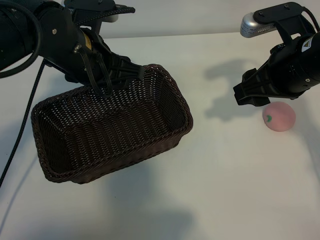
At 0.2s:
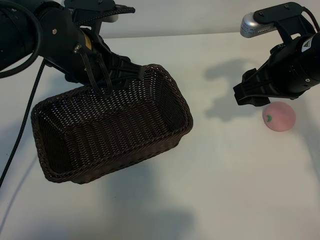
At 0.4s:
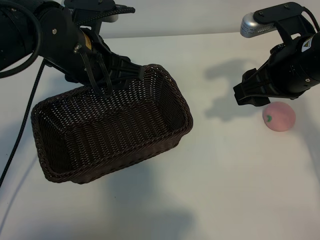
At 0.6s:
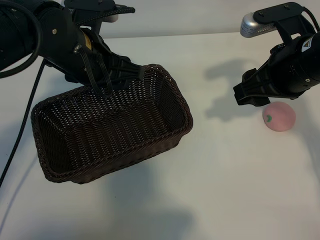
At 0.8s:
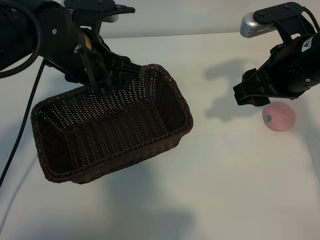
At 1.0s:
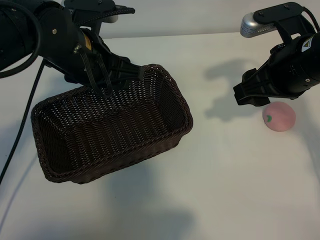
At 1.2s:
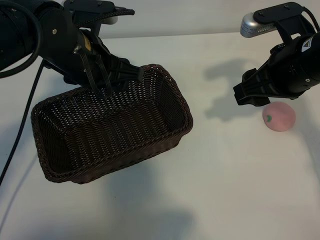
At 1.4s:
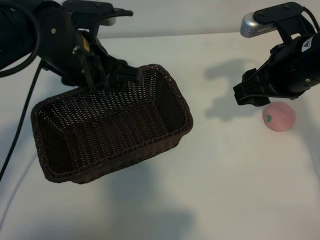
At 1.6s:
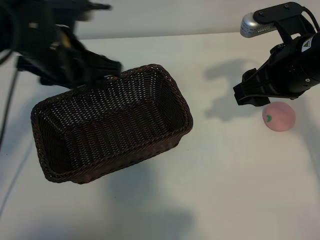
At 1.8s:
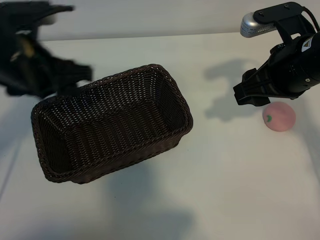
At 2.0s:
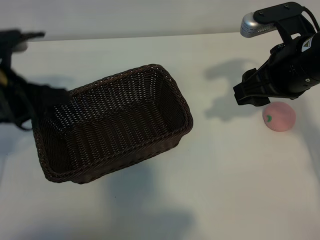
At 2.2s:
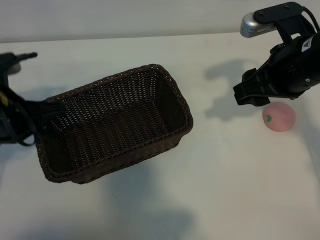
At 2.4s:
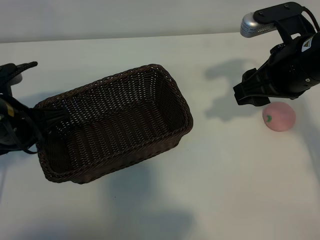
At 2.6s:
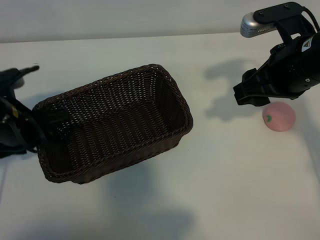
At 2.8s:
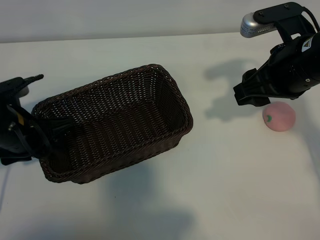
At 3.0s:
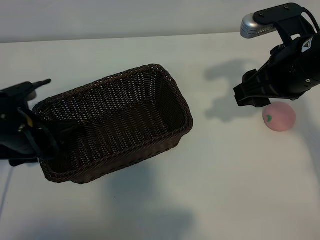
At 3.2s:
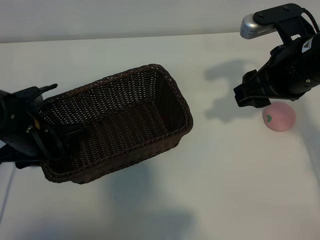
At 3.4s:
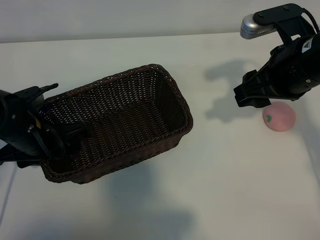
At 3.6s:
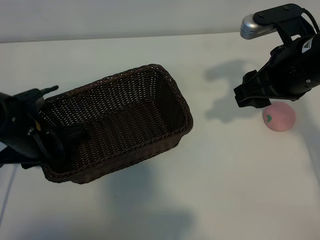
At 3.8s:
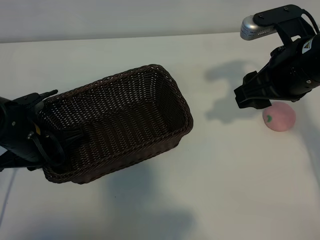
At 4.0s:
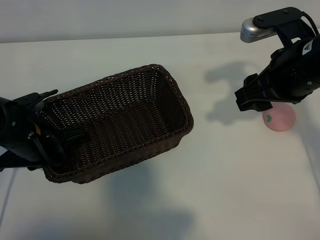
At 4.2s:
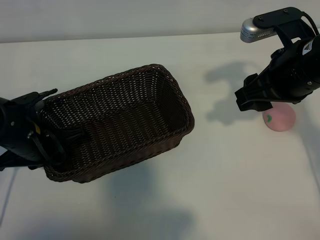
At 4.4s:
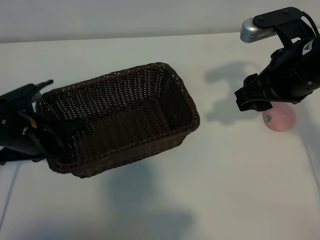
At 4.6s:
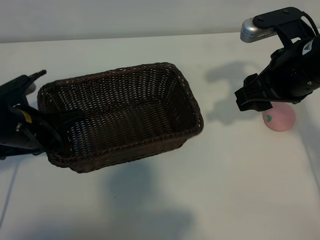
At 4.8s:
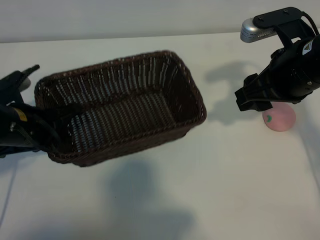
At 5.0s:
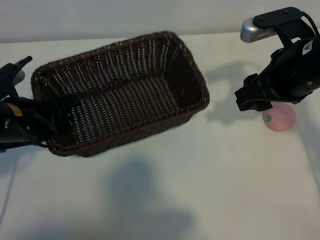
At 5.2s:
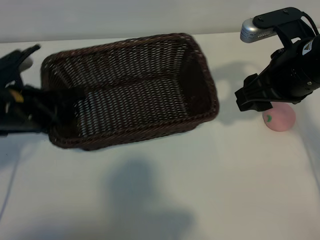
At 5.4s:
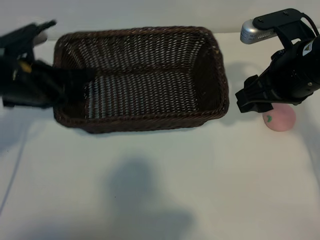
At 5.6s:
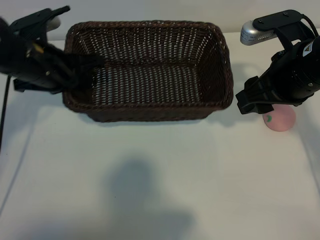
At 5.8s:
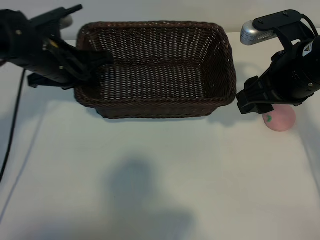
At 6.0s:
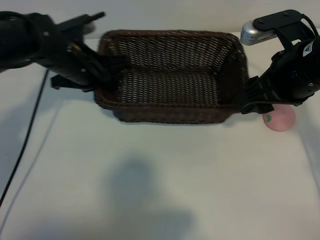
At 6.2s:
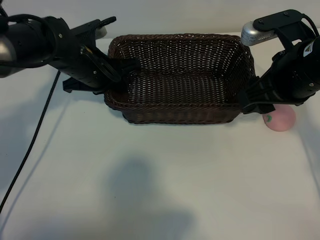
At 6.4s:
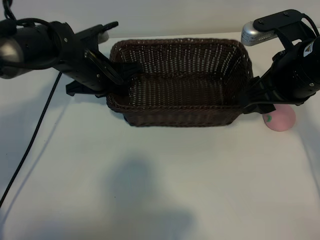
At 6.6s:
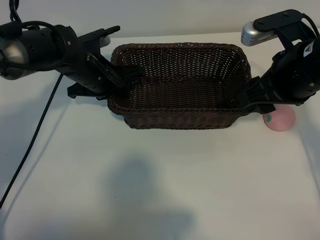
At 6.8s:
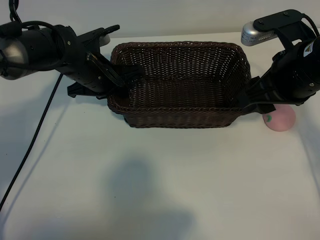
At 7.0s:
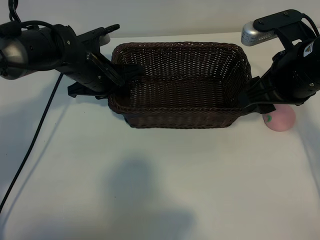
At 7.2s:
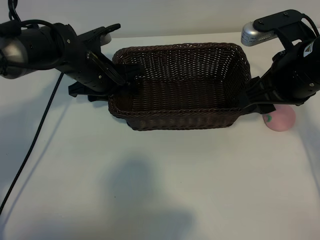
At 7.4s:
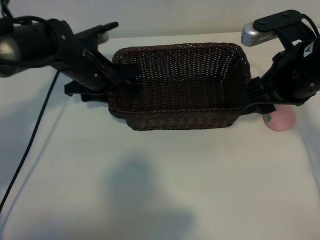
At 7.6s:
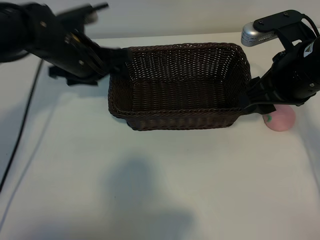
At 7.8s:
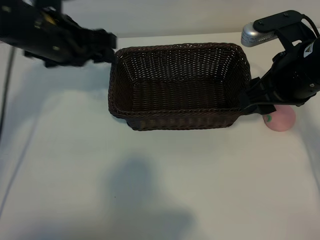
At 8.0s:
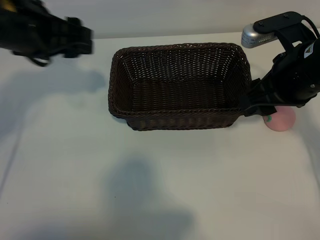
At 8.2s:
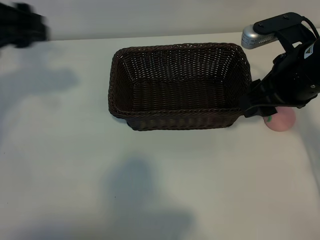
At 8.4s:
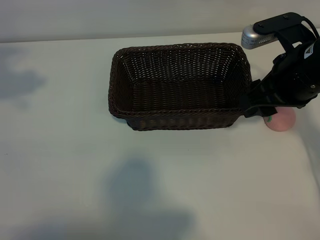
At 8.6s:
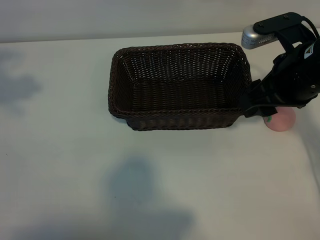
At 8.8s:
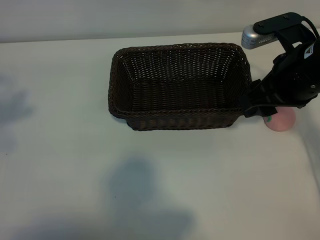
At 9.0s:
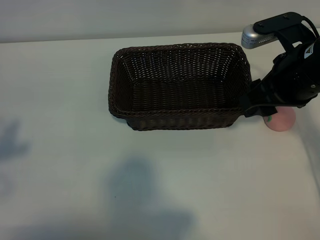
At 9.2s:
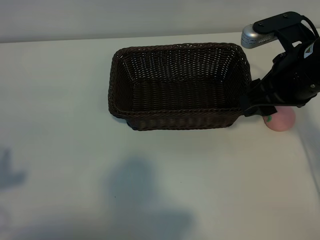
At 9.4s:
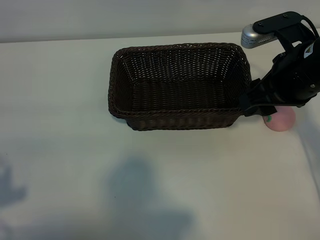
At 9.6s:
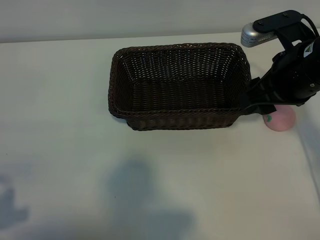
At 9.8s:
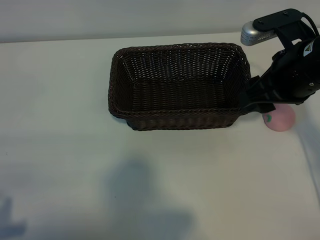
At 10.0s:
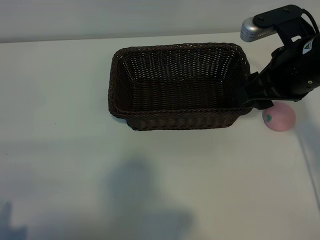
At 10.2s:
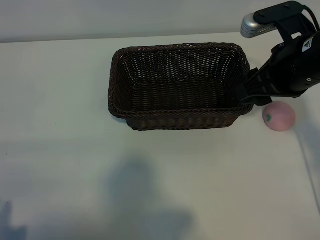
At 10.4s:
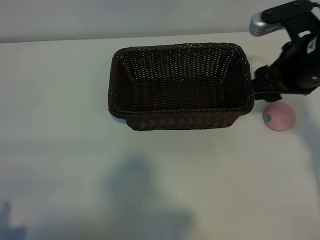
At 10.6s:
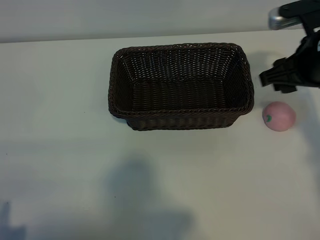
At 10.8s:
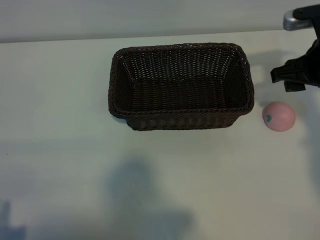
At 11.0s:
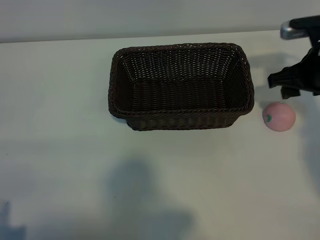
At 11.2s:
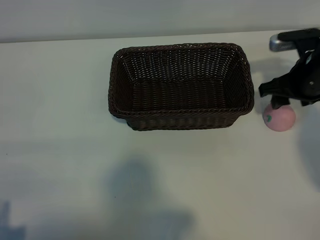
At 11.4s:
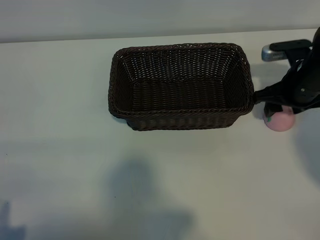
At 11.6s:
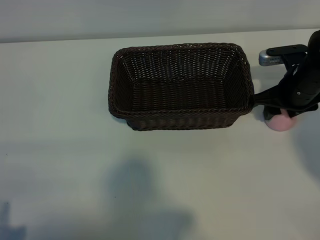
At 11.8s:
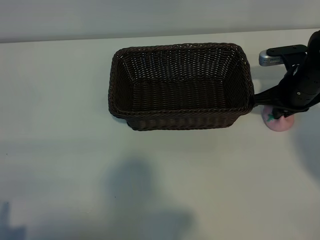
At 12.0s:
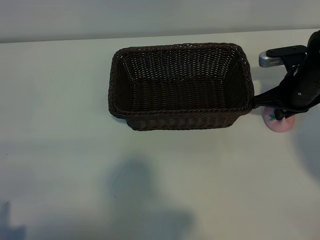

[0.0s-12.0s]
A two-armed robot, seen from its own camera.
Task of the whole recording: pick up the peach and put it into the basket.
Step, 1.0s to 4.0s: Grasp the basket with left gripper.
Step, 4.2s to 7.4s: Place the basket in the center of view with left gripper.
Step, 7.6s to 11.8s: Grasp the peach with right gripper.

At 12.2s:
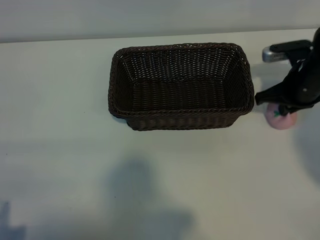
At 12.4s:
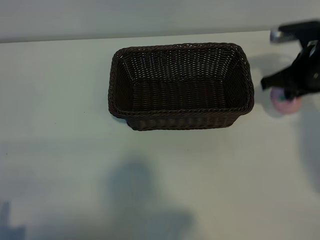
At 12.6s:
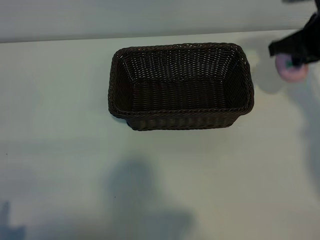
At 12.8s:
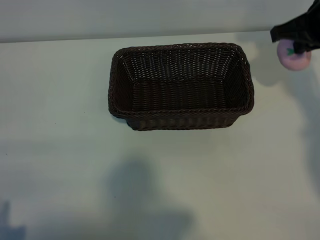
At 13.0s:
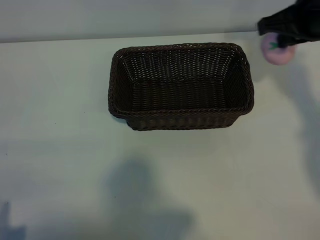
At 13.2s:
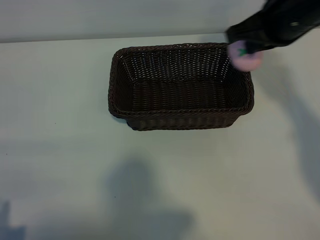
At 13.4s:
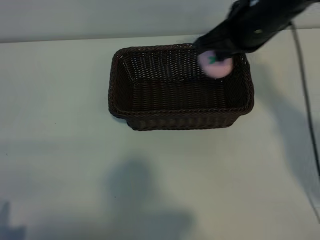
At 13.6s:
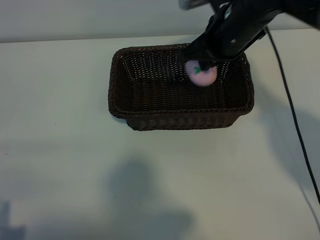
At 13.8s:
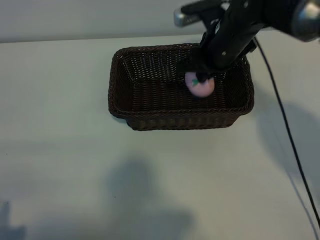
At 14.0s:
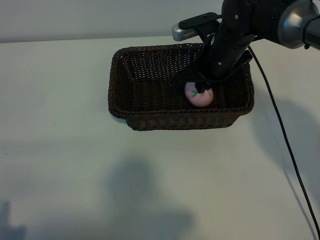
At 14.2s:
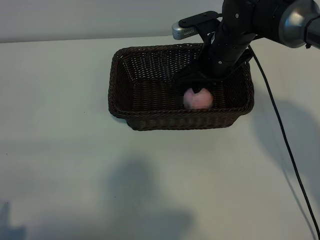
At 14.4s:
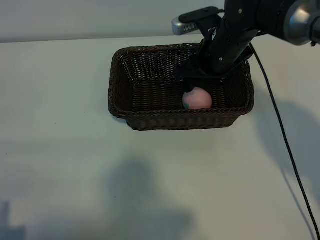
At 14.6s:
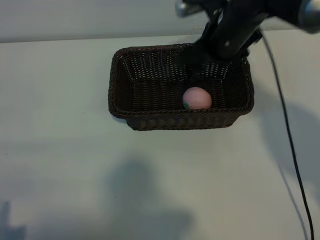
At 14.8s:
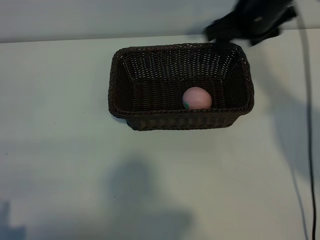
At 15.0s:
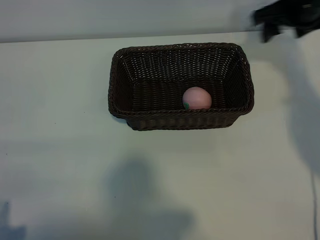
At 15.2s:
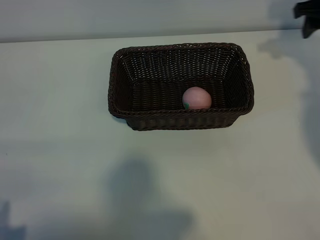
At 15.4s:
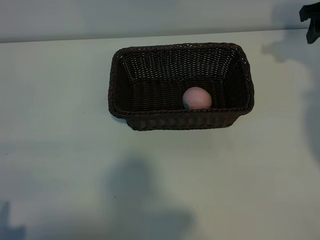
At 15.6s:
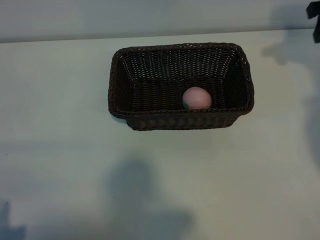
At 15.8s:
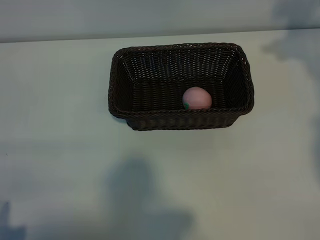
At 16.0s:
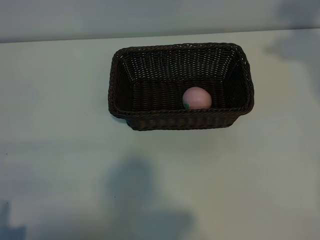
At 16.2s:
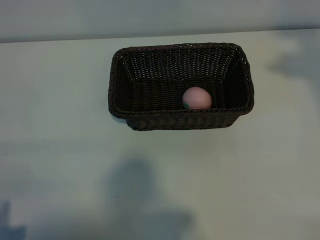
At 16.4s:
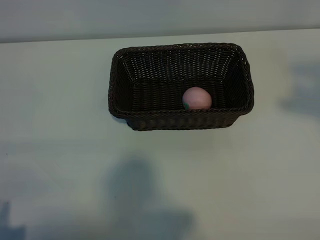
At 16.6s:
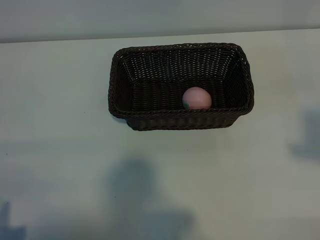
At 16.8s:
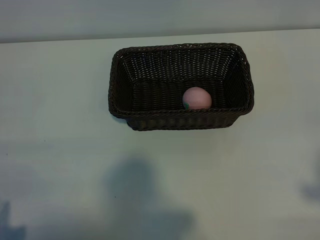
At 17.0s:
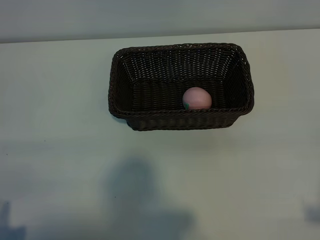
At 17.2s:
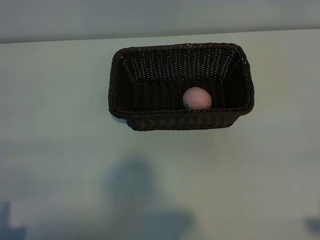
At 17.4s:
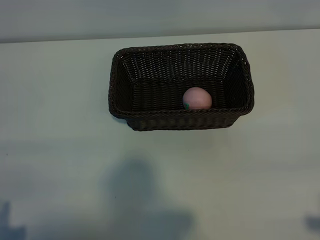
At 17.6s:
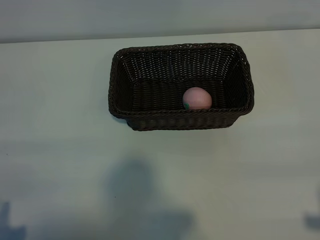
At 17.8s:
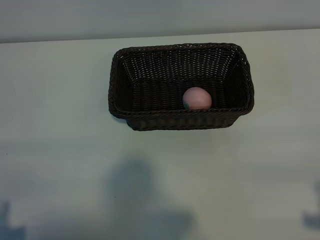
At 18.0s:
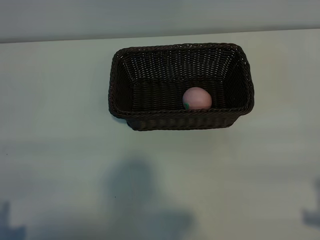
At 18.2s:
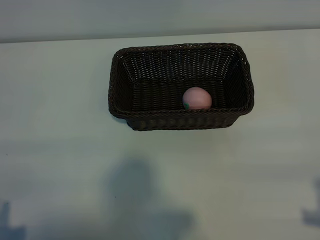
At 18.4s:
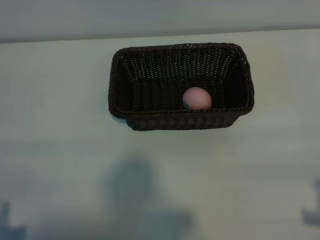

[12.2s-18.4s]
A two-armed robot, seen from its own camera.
Task of the whole recording: pick up the peach and put it into the basket.
Step, 12.2s to 14.2s: Place the peach in the basket with right gripper.
